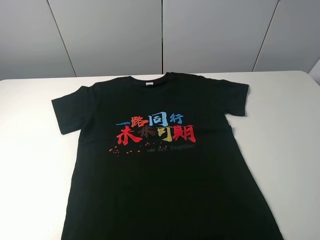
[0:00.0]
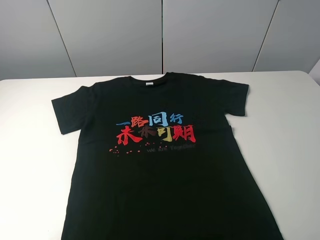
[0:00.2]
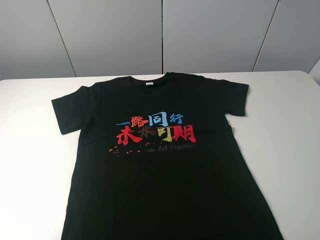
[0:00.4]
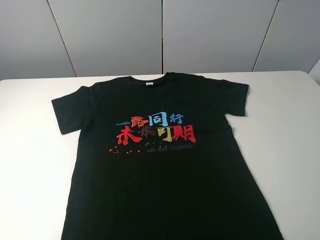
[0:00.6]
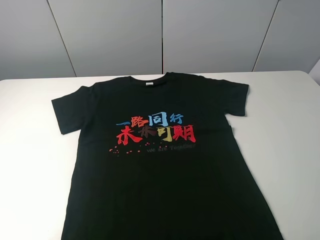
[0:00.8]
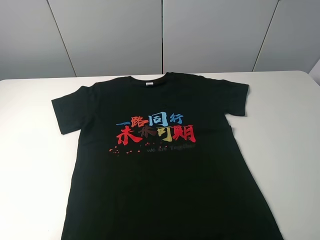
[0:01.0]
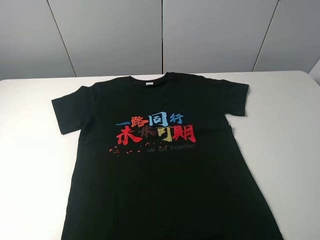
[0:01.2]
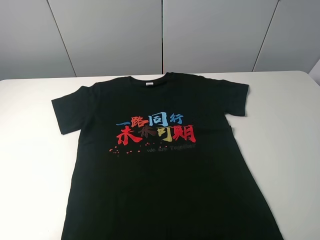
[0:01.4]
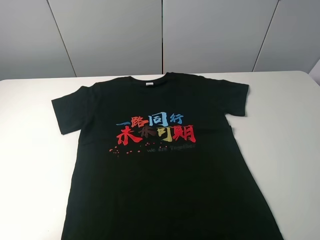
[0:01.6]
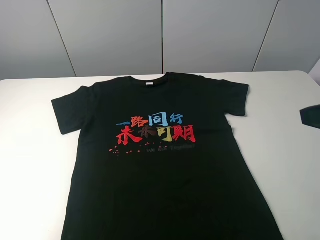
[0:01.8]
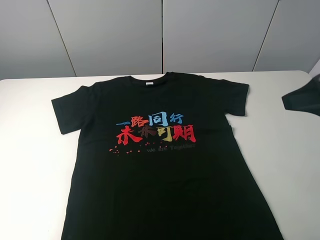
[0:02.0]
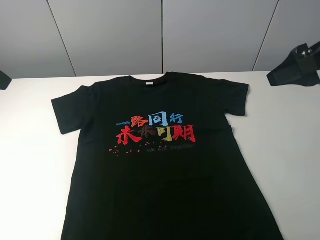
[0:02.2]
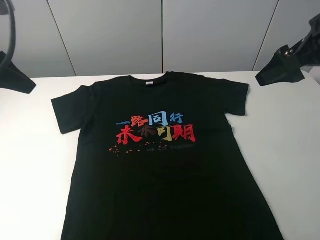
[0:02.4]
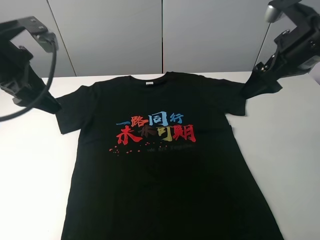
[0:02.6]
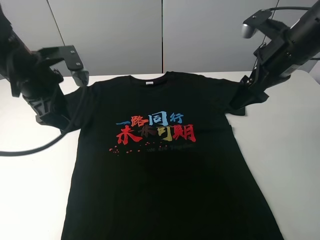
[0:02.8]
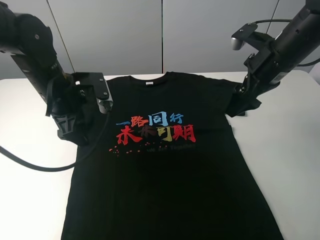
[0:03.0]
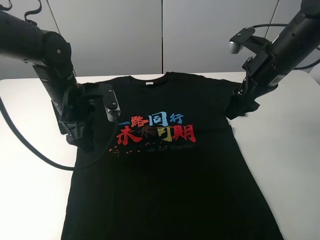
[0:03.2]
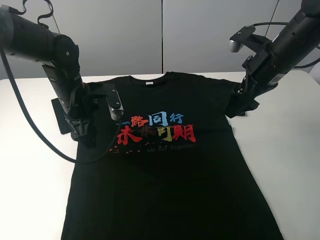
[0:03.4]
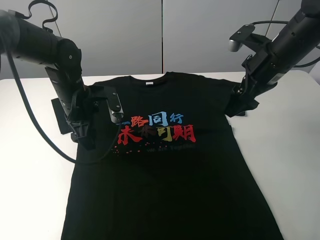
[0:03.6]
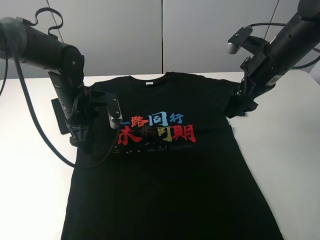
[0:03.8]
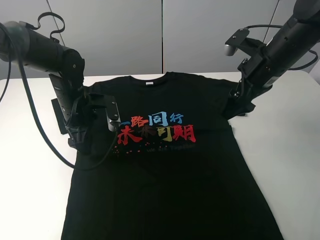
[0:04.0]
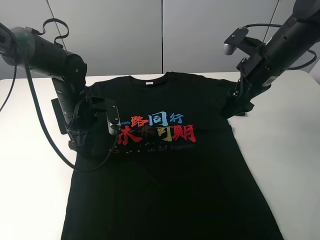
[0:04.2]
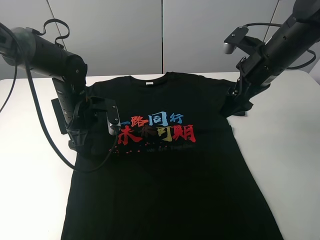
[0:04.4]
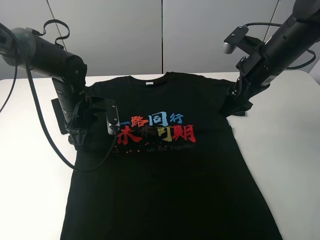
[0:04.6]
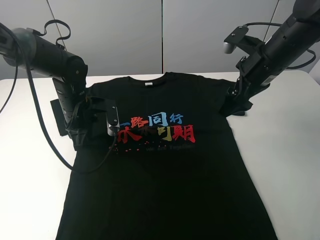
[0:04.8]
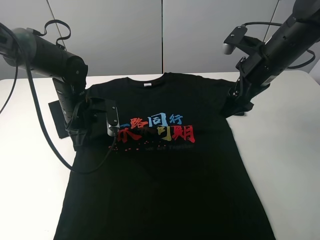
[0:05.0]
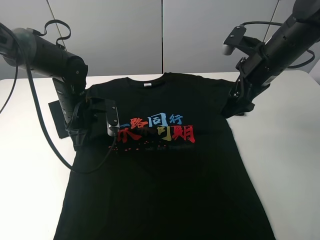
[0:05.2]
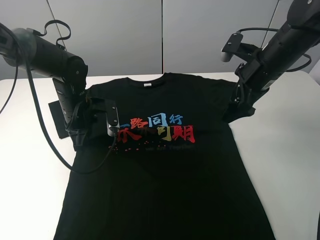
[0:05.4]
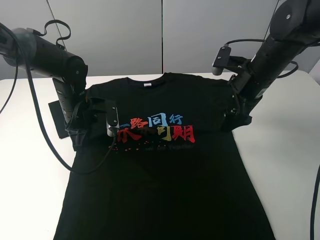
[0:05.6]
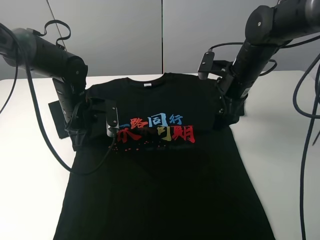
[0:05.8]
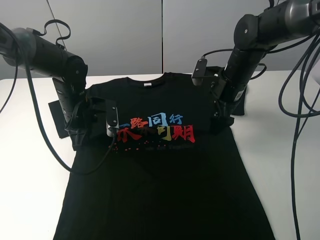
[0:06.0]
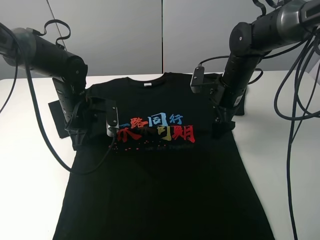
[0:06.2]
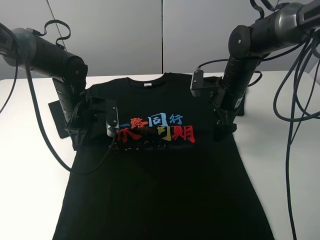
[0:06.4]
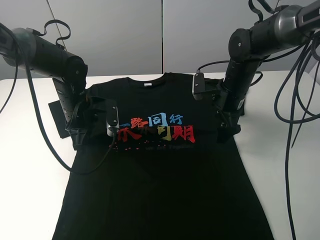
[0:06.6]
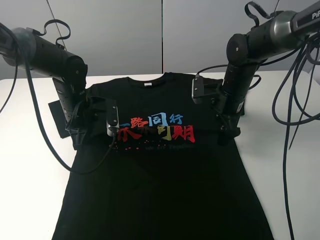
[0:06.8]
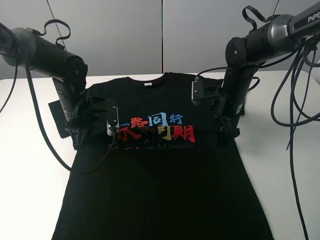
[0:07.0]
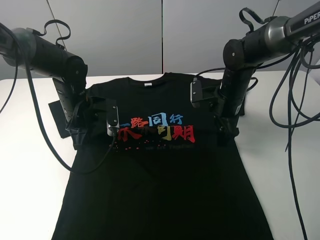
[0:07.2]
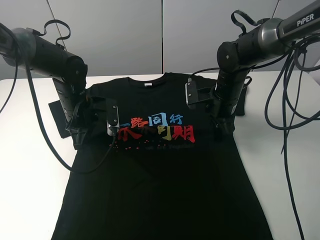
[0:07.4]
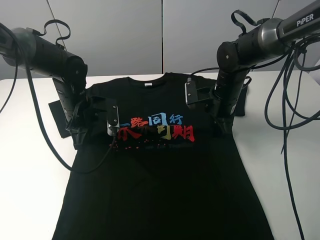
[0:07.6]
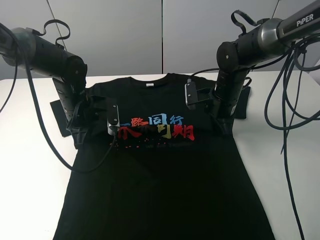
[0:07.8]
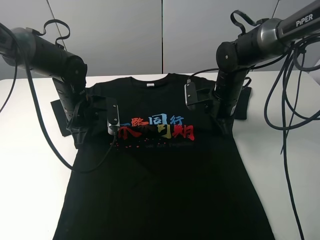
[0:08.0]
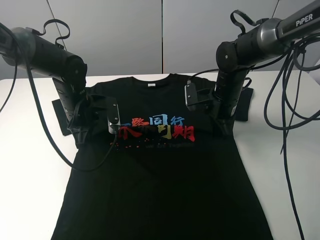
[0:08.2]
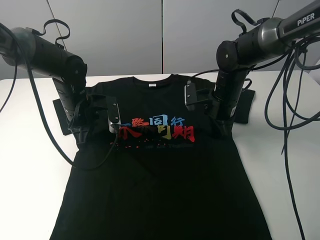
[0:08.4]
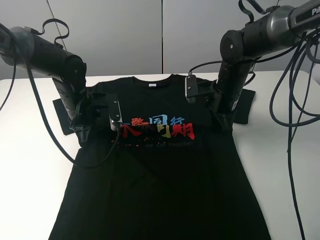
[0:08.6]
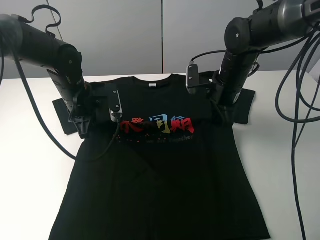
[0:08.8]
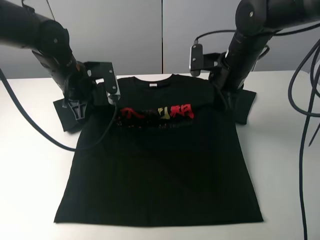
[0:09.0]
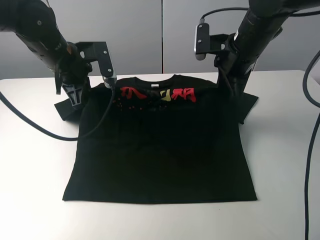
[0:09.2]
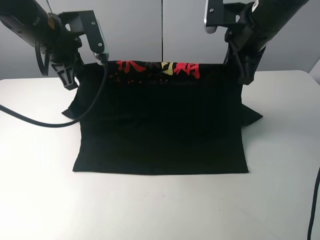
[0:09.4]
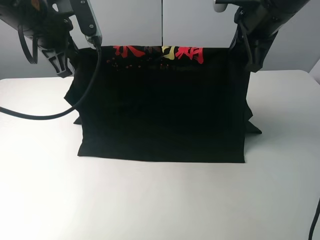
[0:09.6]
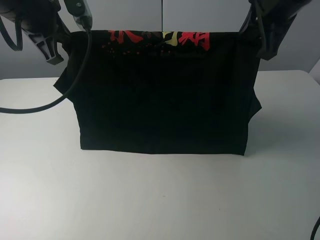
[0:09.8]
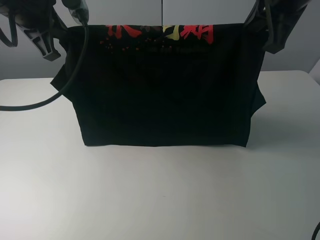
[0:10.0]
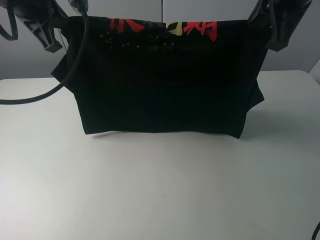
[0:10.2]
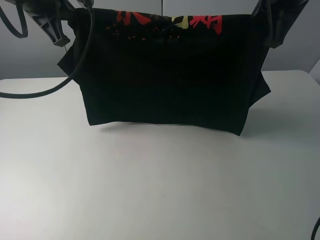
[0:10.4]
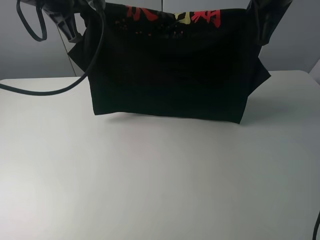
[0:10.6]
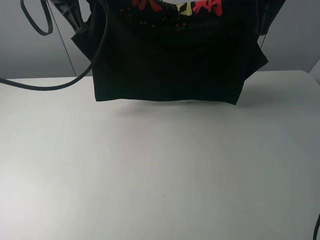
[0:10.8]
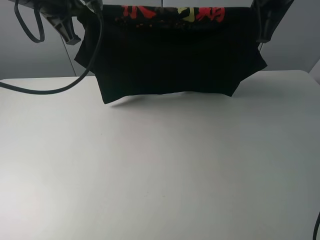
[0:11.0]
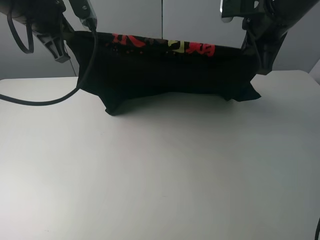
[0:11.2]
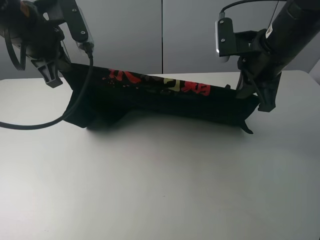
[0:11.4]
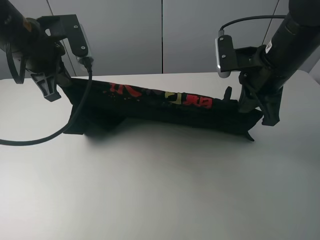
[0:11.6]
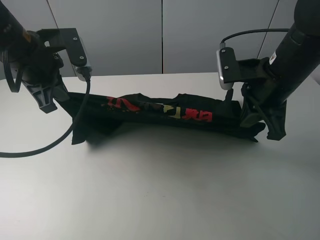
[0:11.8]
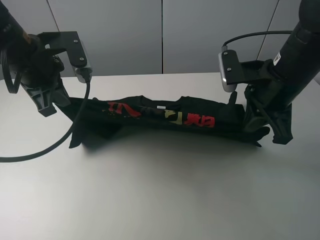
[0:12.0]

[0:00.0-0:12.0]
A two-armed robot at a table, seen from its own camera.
Task of the whole recording: fold the clothes on the table.
Step, 0:00.0 to 0:07.6: Lift the black T-shirt with the left gripper.
0:01.6 to 0:03.0: The left gripper is displaced forward, to the right and downward by some 30 cm. Meanwhile the right gripper travels forward by some 25 cm.
0:03.0 to 0:04.4: The left gripper goes roughly 5 cm downward.
0:04.4 to 0:06.0: The left gripper closes; the right gripper heads downward, covering approximately 5 cm.
0:06.0 to 0:07.6: The right gripper closes.
0:07.6 to 0:09.0: The two grippers go about 10 cm upward.
0:09.0 to 0:10.4: Both grippers travel together upward, about 15 cm.
0:10.4 to 0:12.0: The right gripper travels downward and backward by some 15 cm. The left gripper shifts approximately 10 cm downward.

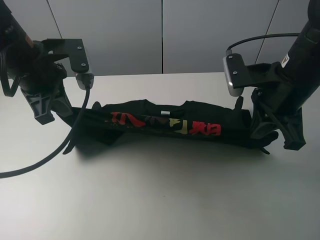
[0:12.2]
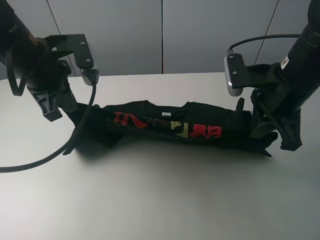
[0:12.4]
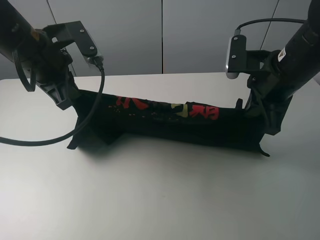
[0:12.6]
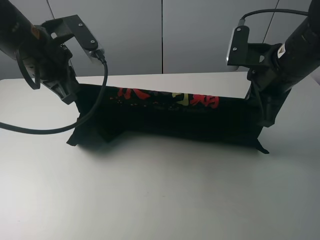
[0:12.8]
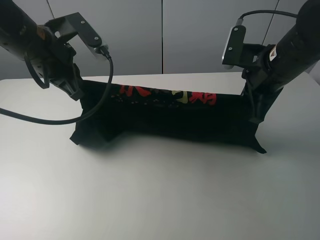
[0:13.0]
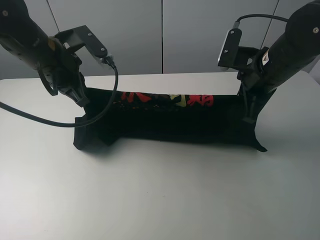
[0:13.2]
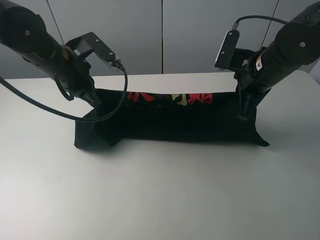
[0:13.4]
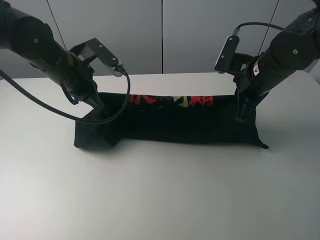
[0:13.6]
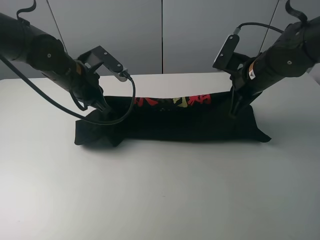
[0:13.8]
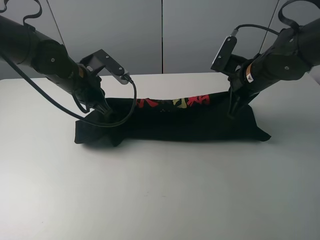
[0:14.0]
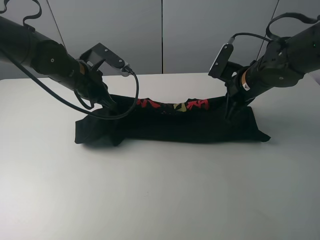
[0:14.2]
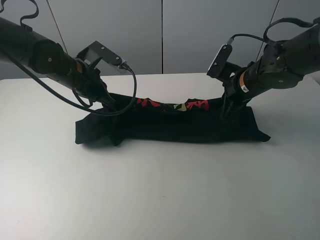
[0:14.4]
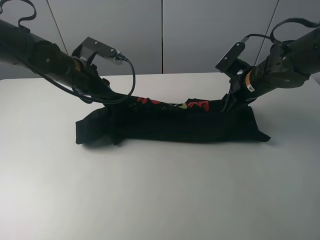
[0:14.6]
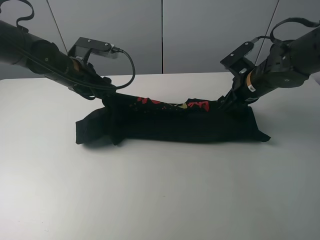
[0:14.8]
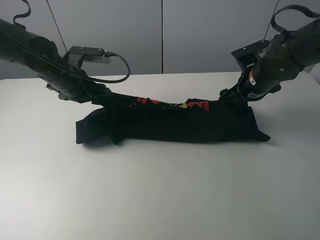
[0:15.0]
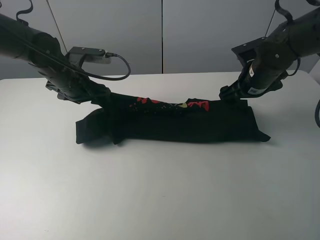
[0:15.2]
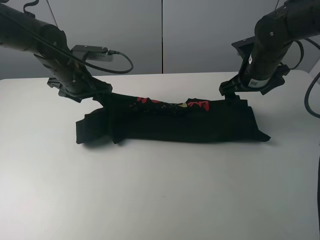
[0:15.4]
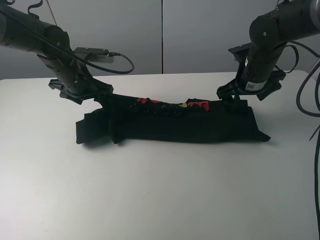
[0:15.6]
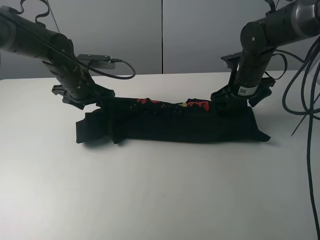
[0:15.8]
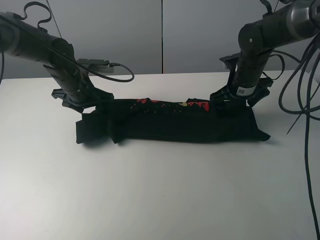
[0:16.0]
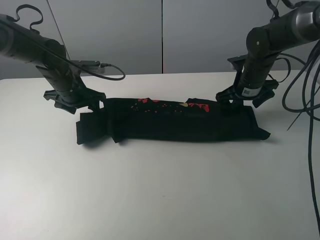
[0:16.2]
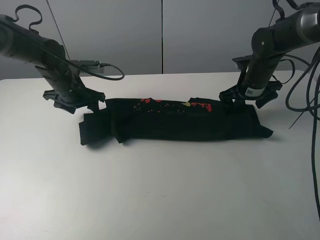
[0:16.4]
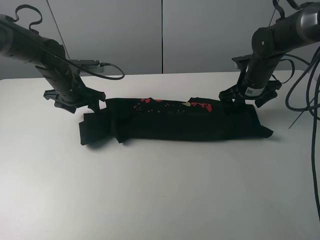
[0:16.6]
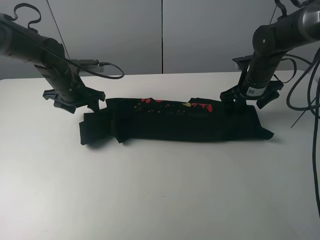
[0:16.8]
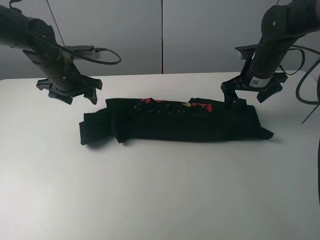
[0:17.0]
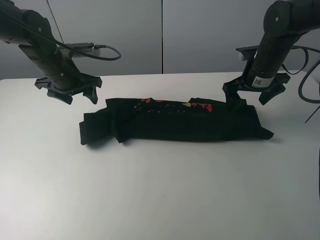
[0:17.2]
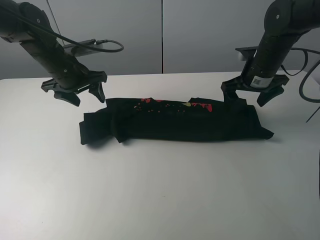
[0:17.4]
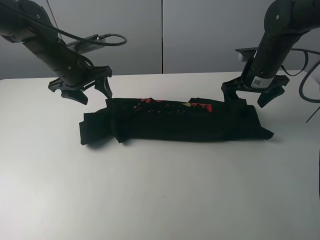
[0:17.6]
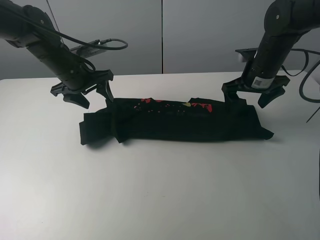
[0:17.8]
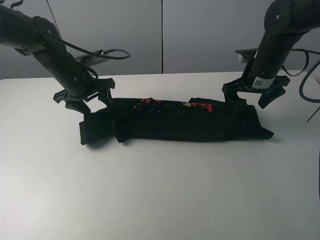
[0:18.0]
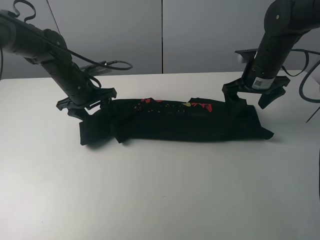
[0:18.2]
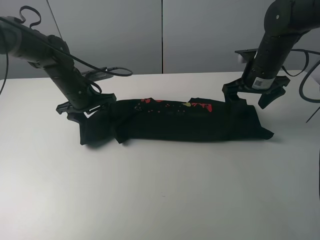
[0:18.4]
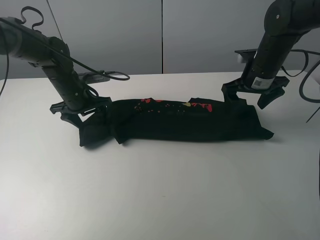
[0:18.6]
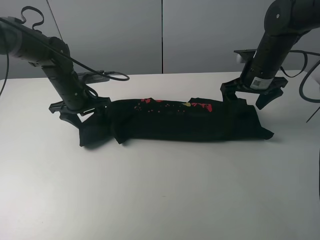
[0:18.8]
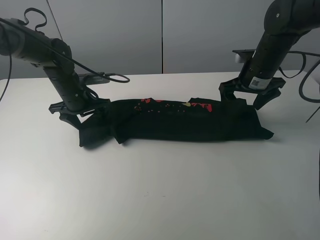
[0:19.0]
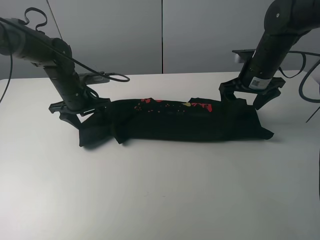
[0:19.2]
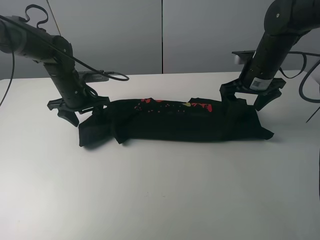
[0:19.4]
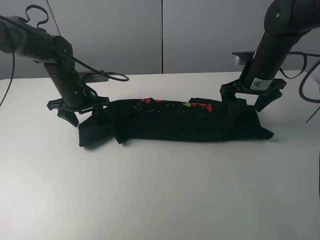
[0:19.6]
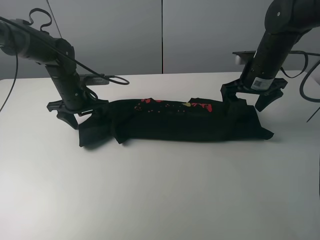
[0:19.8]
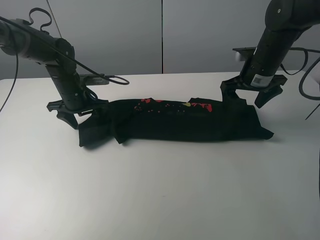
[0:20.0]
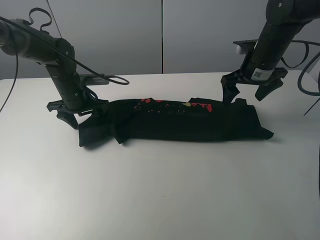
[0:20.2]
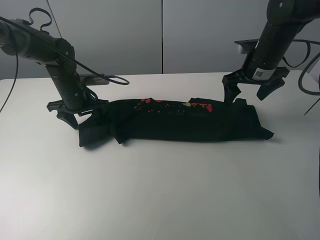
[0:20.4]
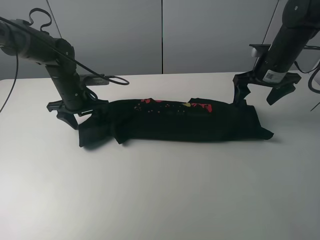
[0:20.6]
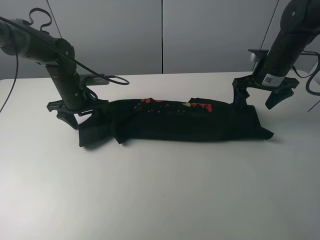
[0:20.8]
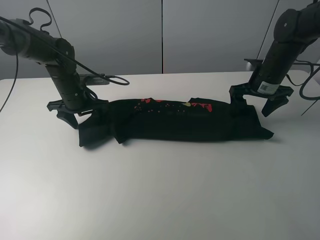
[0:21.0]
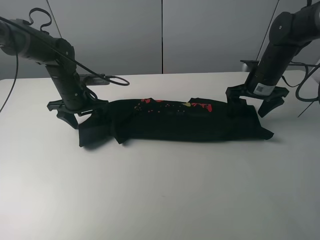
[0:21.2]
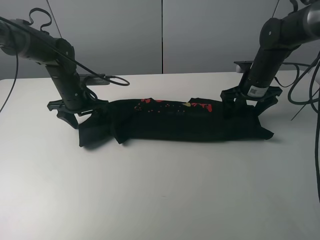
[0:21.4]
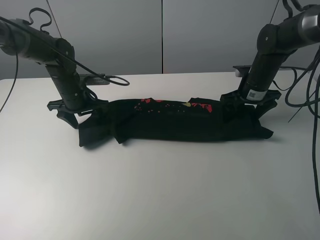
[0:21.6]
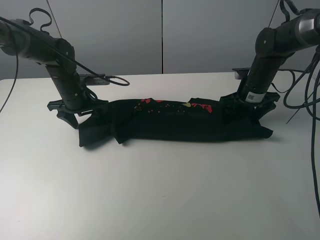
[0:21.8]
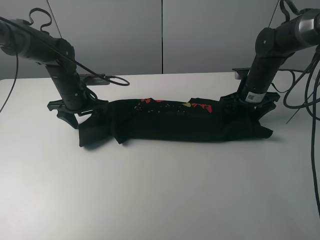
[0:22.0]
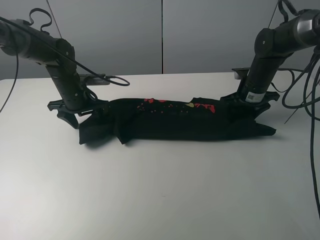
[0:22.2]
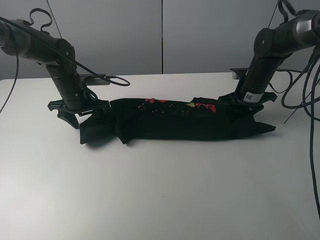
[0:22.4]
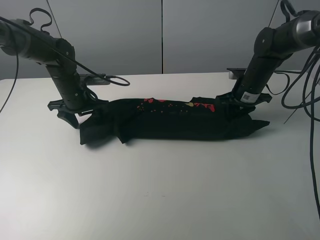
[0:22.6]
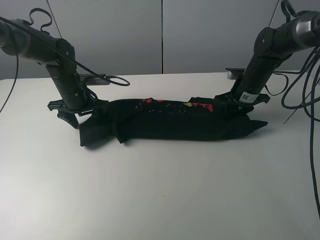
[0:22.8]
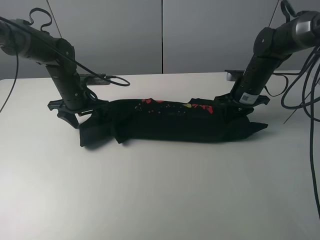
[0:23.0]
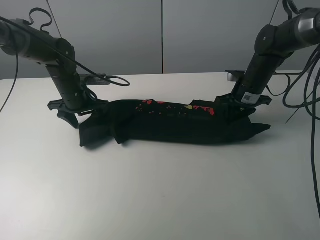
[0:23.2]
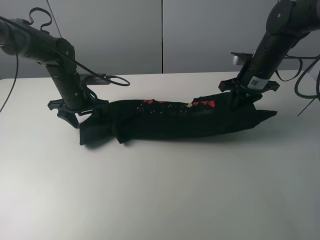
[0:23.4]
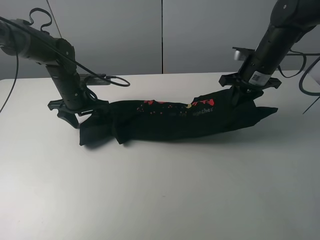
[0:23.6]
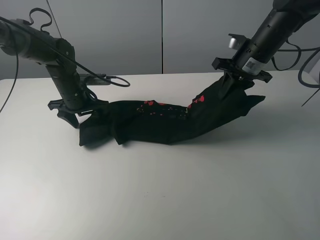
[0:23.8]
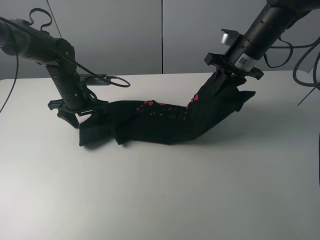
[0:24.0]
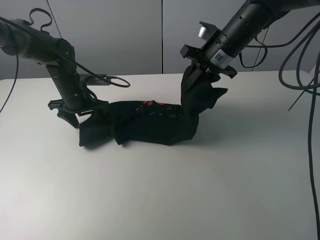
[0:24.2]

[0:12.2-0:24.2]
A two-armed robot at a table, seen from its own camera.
Task of the whole recording: fold the clothes on the table.
Step, 0:12.2 to 0:15.2: Fold the black T-shirt downward with the left gripper.
Step, 0:15.4 to 0:22.4: Grasp the black T-shirt with the right gripper.
0:12.2 to 0:13.8: The right gripper shifts some 10 cm forward and downward, while the left gripper heads downward and forward, covering roughly 10 cm.
0:13.8 to 0:15.2: The left gripper opens up. Meanwhile the right gripper opens up.
0:15.2 to 0:16.6: The left gripper changes place by about 5 cm. Meanwhile the right gripper shifts by roughly 5 cm.
0:16.6 to 0:18.2: The right gripper ends up approximately 5 cm from where it was.
0:18.2 to 0:19.8: The grippers move only a little.
0:19.8 to 0:21.2: The right gripper moves approximately 5 cm.
0:21.2 to 0:22.6: The right gripper closes its fingers.
0:22.6 to 0:24.2: The right gripper travels upward and to the left by some 15 cm.
